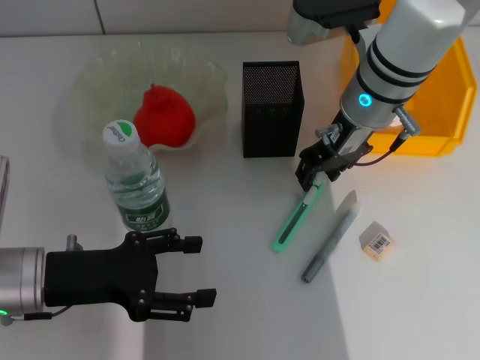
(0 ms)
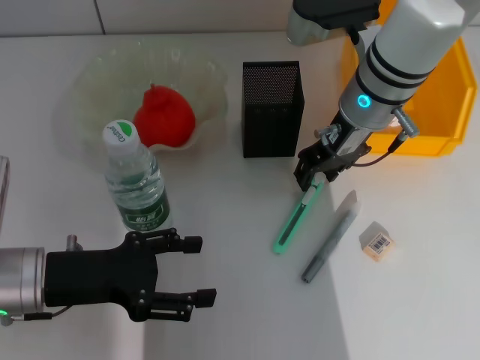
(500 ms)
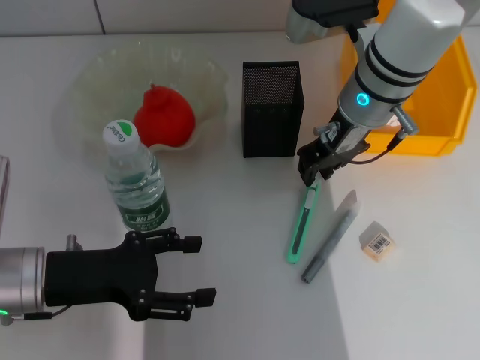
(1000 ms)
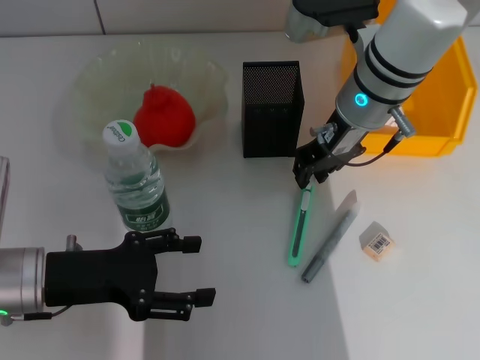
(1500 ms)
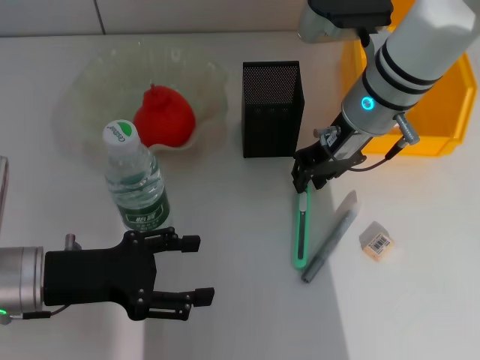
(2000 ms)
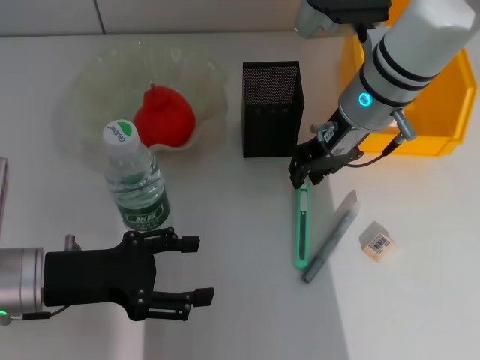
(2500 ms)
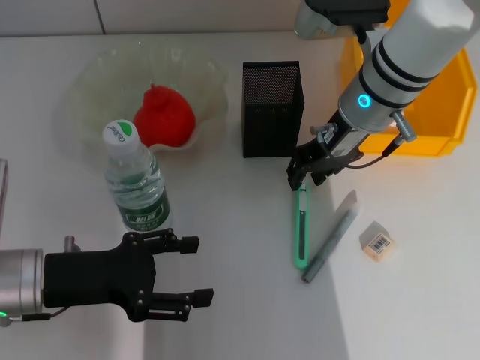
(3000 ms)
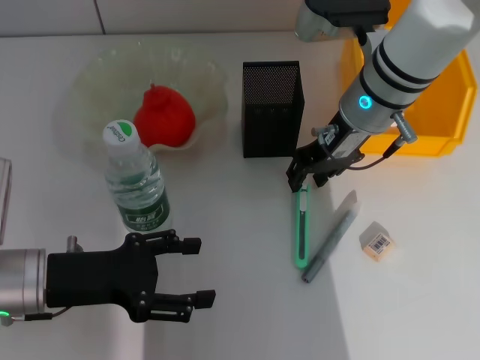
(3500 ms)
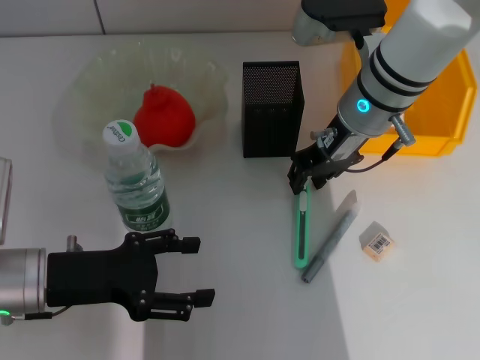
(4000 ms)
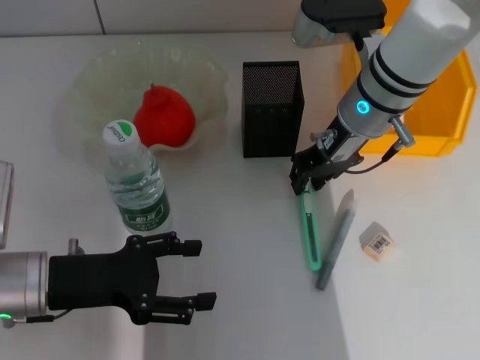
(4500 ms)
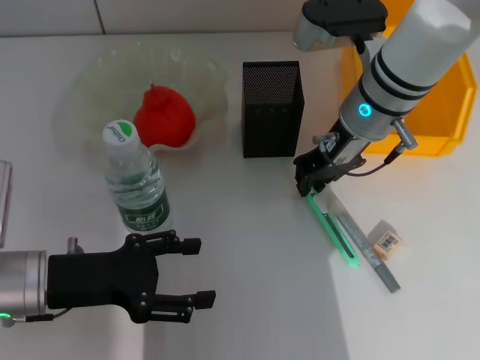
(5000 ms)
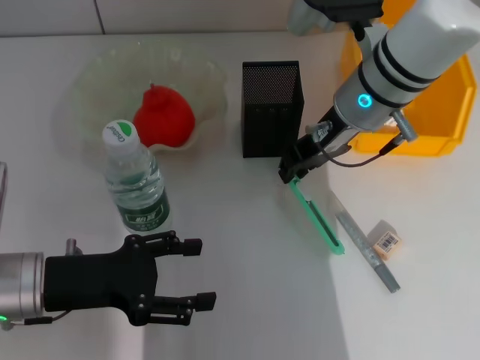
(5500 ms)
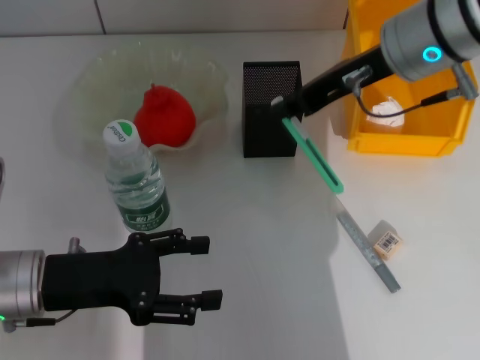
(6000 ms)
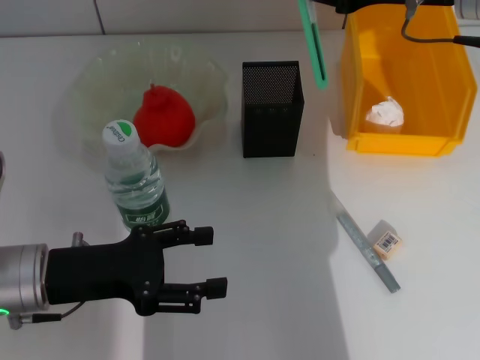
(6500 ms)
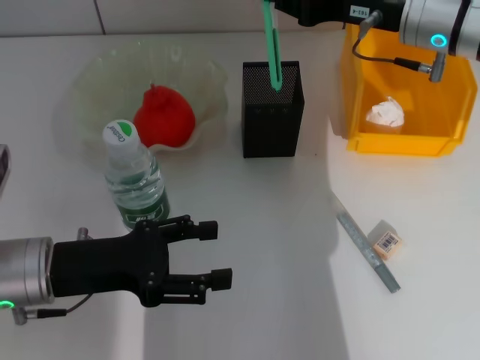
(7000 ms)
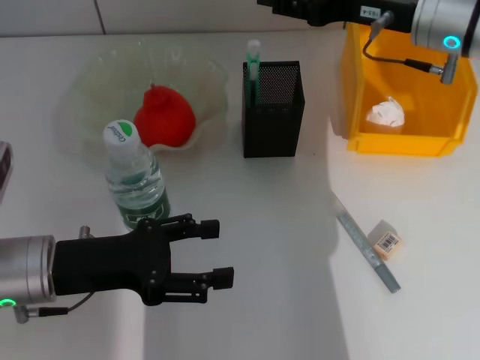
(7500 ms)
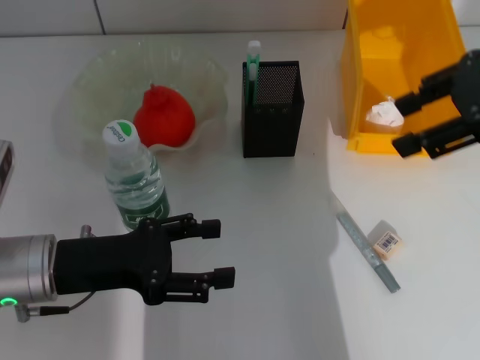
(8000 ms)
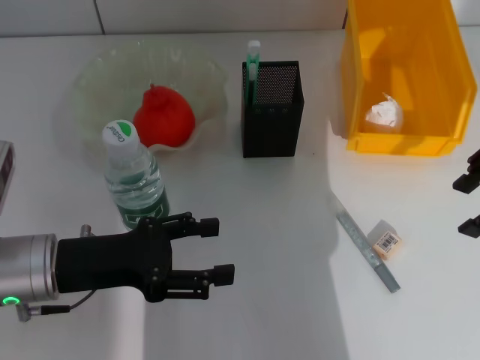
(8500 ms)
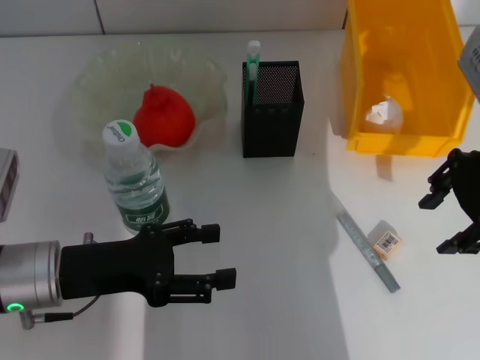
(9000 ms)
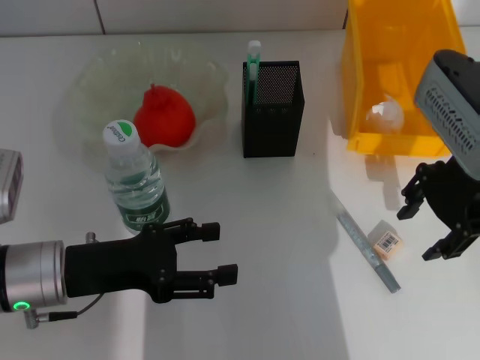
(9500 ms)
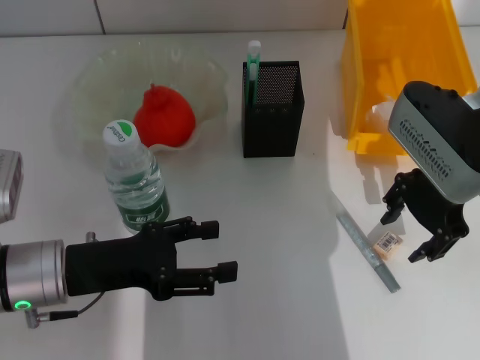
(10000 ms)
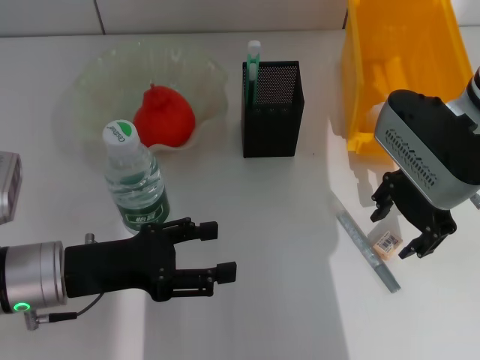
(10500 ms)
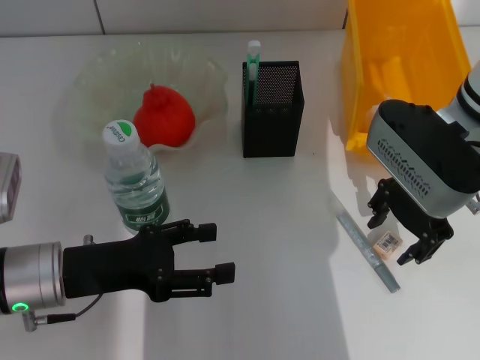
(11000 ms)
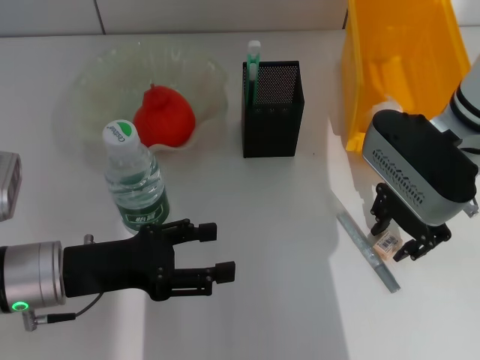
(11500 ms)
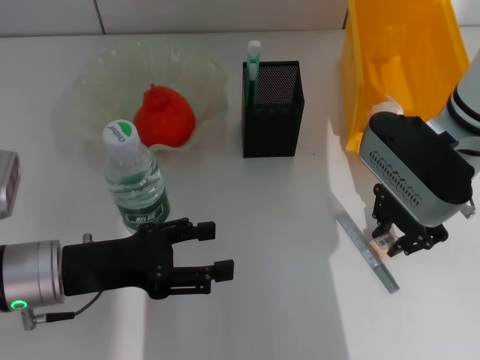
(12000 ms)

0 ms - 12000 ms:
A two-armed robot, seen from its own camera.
Step, 0 ms - 5000 ms: Grab the blue utility knife with the right hand.
Step, 5500 ms - 7500 ms: Place the blue utility knife into the pen holder with the right hand.
Step, 8000 ms - 11500 ms: Grab the eraser with the right hand.
0 ms - 2000 ms: The right gripper closes its fingers.
2000 ms - 4000 ms: Both grippers stay about where they are.
4000 ms - 6000 ms: The right gripper goes approximately 10 cm upward.
6000 ms - 8000 ms: The right gripper goes some 10 cm to the right, and opens.
8000 ms - 10000 ms: The right gripper goes about 15 cm downward and to the left.
10000 ms - 12000 ms: The right gripper closes up.

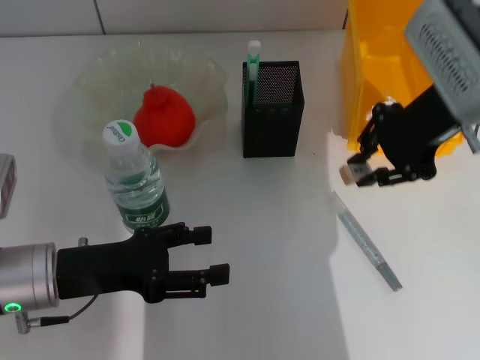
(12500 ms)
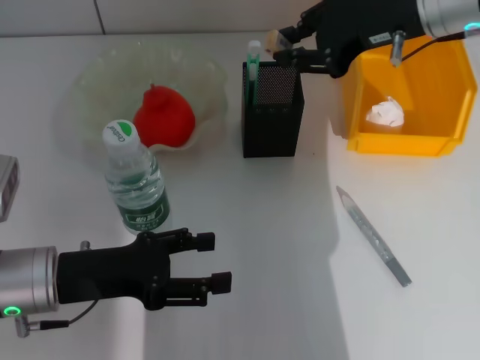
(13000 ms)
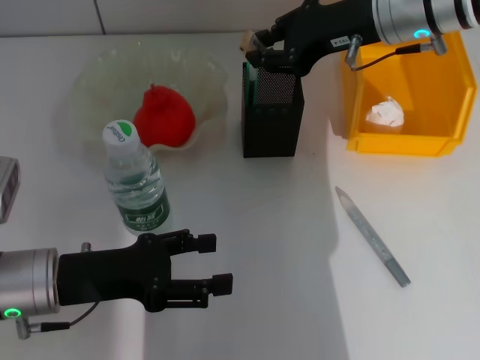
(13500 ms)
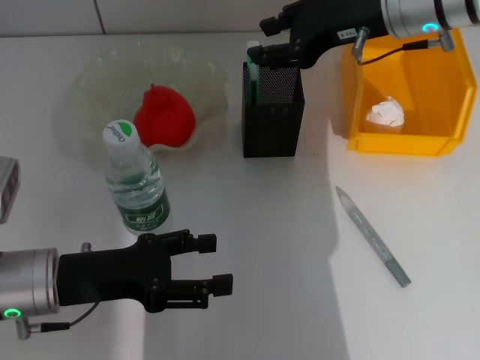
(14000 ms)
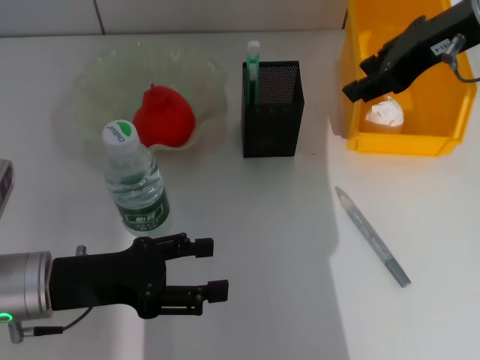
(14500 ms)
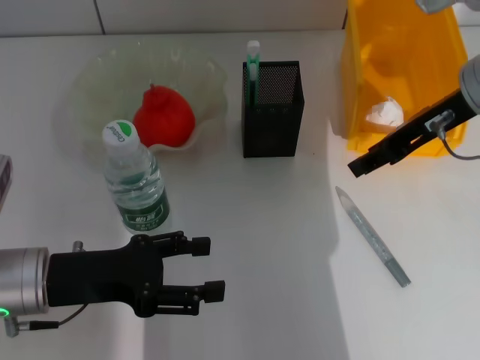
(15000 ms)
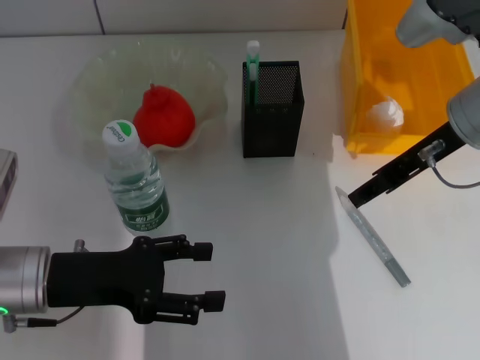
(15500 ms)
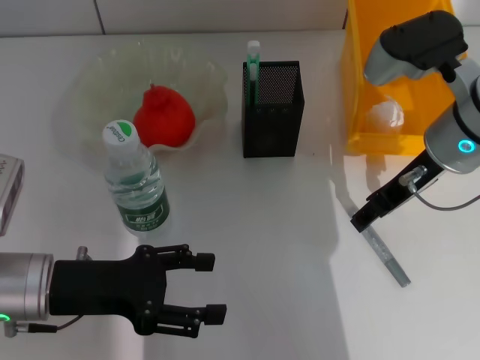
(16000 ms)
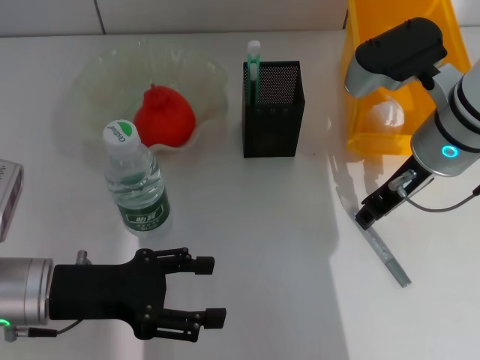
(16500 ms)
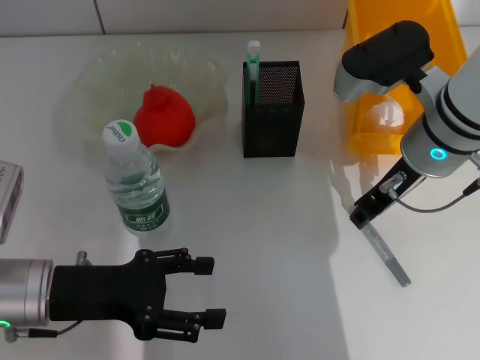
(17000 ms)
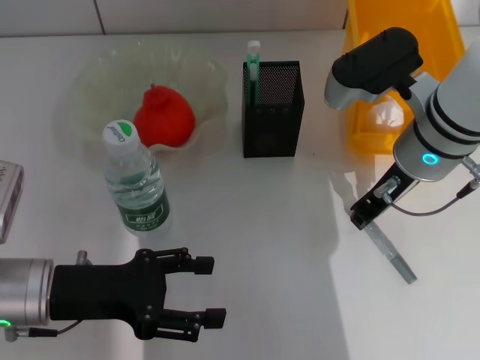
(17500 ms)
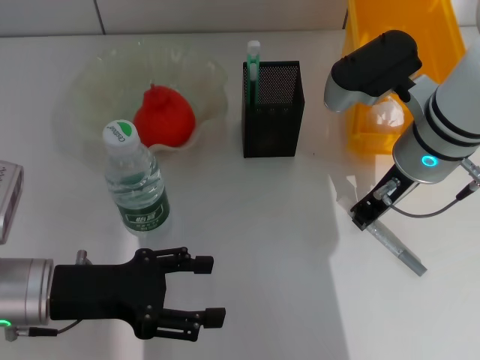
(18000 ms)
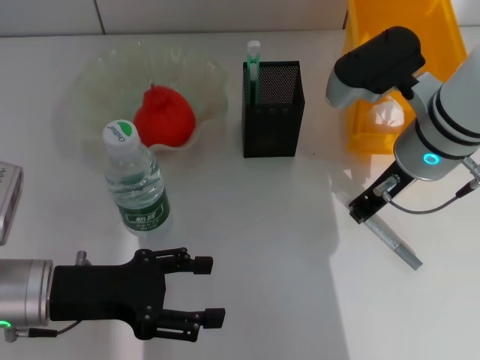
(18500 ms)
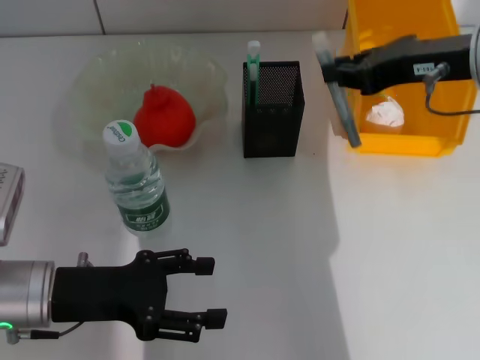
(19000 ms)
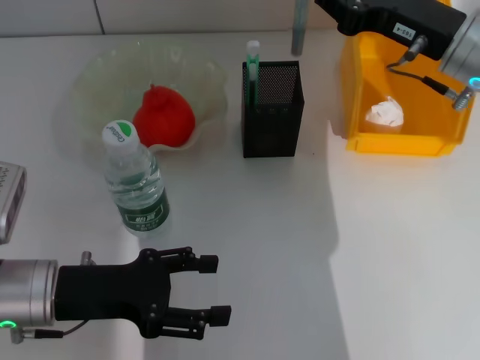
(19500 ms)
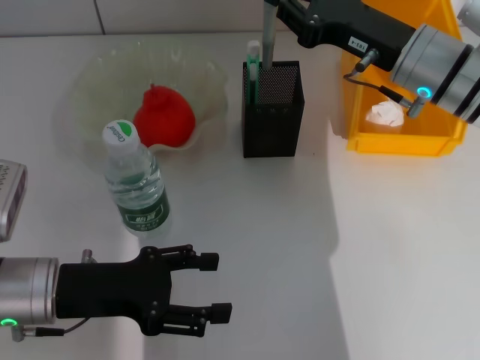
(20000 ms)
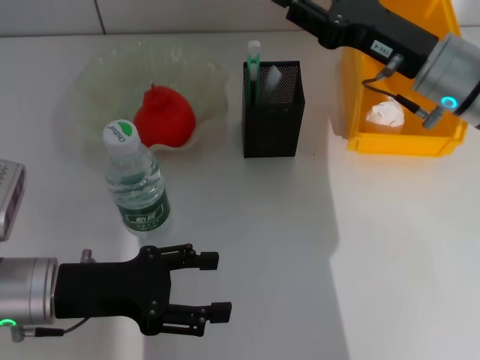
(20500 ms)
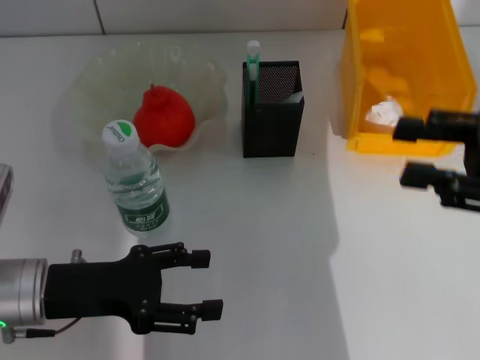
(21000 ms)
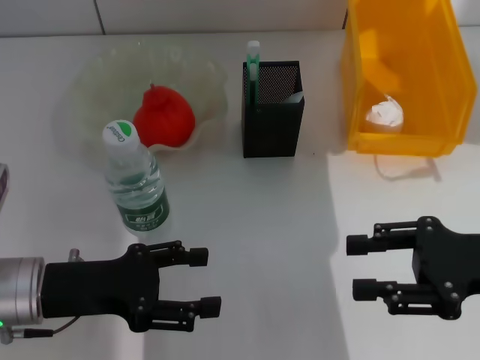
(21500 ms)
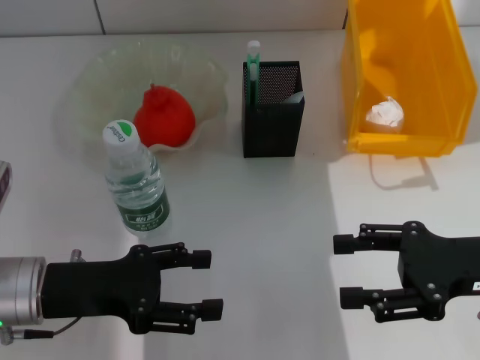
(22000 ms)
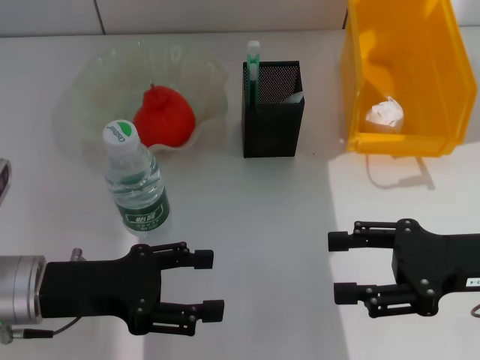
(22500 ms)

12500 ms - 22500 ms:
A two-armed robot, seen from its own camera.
Step, 12500 ms - 13500 ms: Put the eraser into the pen holder with the right hand.
Step, 14000 ms - 18000 ms: Grab the gray glue with the right hand.
Step, 18500 ms - 20500 ms: Place the gray glue into the pen holder with the right hand.
12500 ms - 14500 ms: The right gripper moves some 5 cm, and opens its fingers.
14500 ms - 16500 ms: The right gripper is displaced downward by about 10 cm.
16500 ms - 18500 ms: The right gripper closes.
18500 ms - 20500 ms: The right gripper moves approximately 5 cm upward and comes back, and opens up.
20500 ms - 22500 ms: The right gripper shifts approximately 15 cm backward and to the right, and opens its fingers.

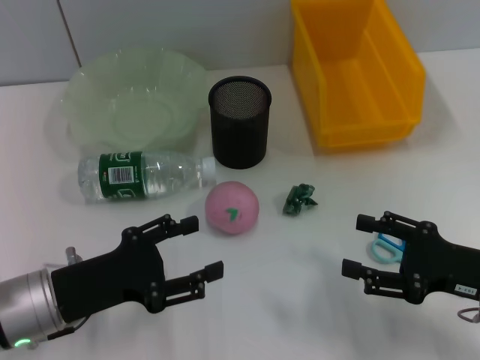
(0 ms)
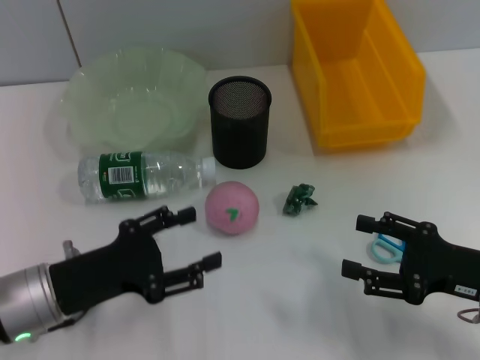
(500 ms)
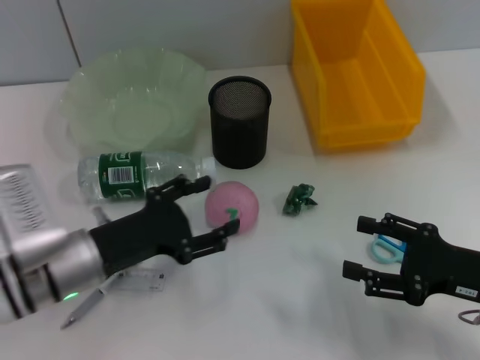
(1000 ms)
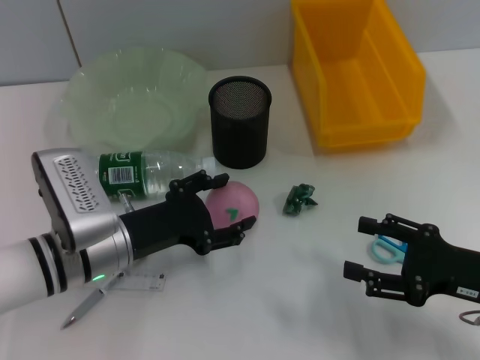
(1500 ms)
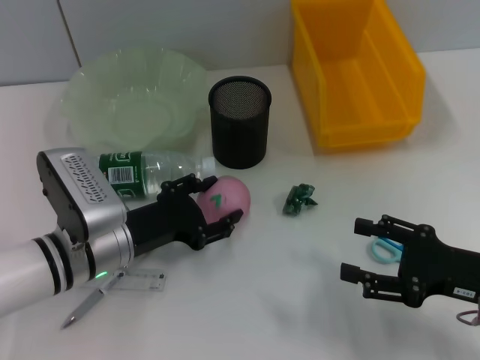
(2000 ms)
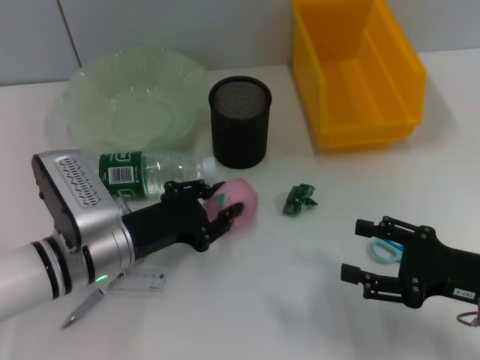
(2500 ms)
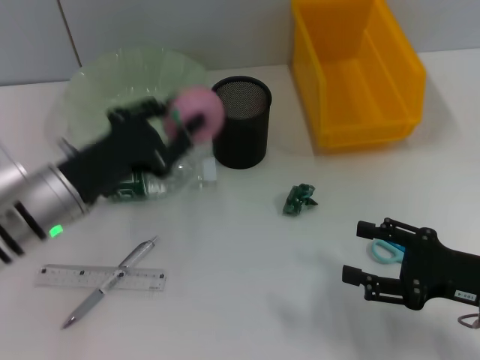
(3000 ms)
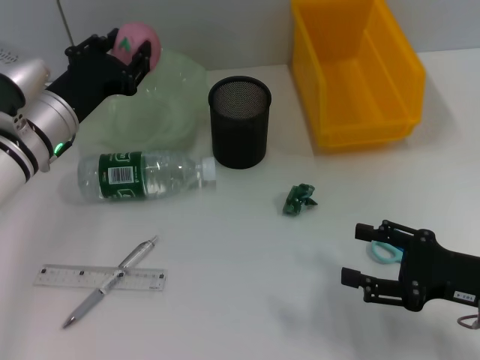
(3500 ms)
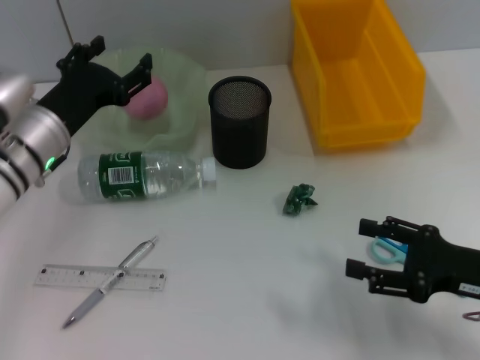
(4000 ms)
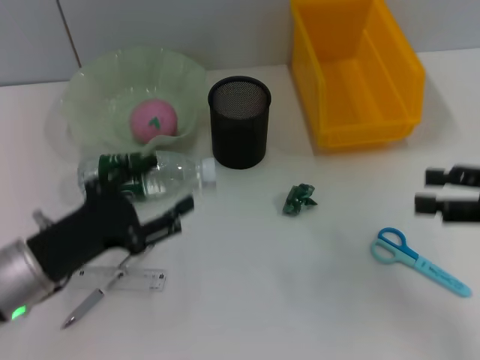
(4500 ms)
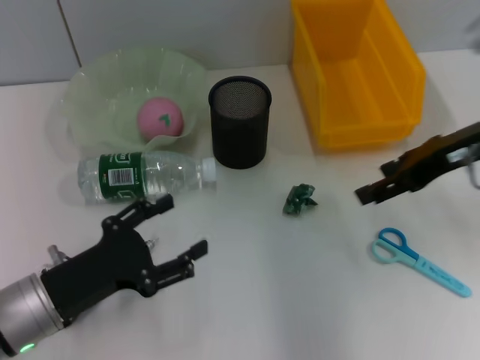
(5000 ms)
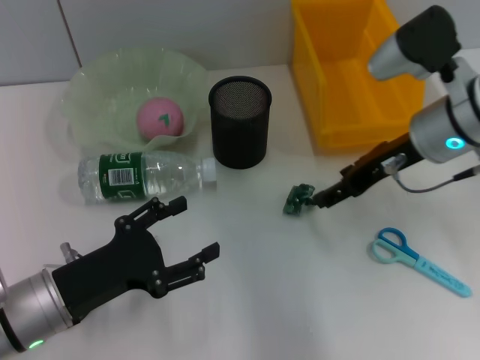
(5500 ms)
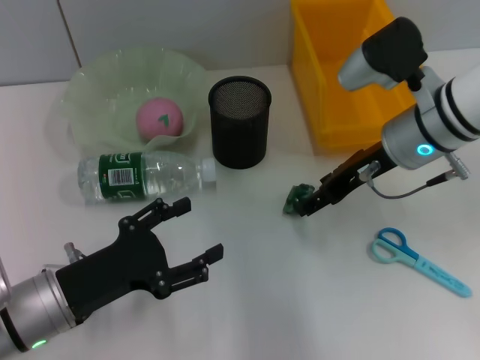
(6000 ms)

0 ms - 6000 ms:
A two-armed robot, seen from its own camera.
Step, 0 ms - 2000 ms: Grab the peach with the left hand.
Step, 3000 ms - 3500 ms: Place the peach into the fruit bowl with the left hand.
0 ms - 2000 ms: The left gripper goes about 10 cm forward and to the right.
2000 ms - 4000 ms: The left gripper goes some 10 cm forward and upward, and closes and opens again.
4000 ms - 6000 ms: The right gripper moves forward, to the left and upward, about 20 cm; the left gripper is displaced backward by some 15 cm.
